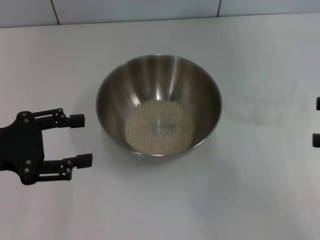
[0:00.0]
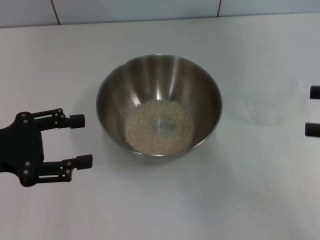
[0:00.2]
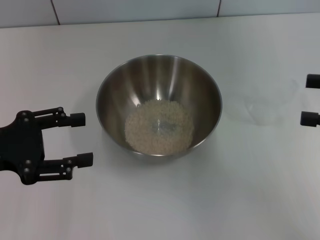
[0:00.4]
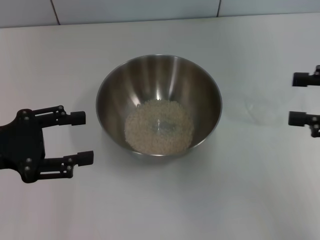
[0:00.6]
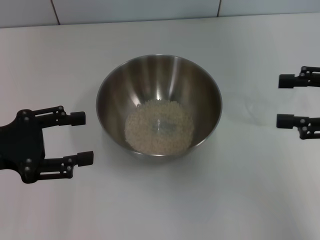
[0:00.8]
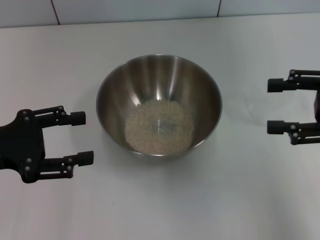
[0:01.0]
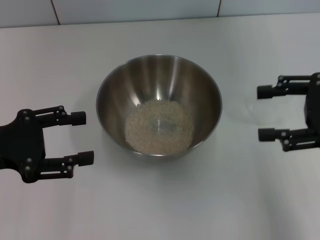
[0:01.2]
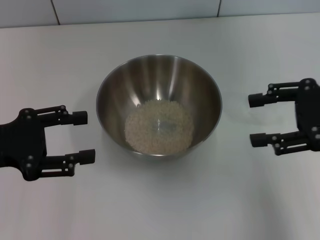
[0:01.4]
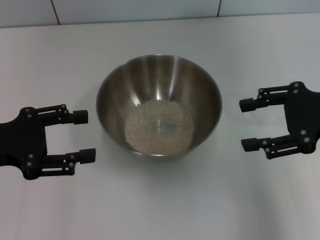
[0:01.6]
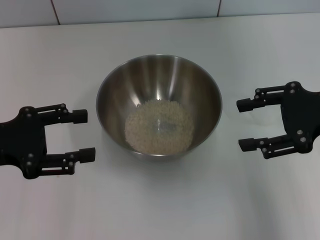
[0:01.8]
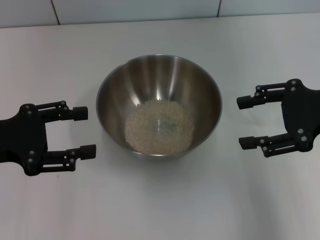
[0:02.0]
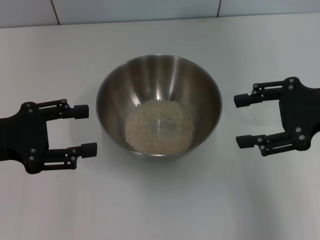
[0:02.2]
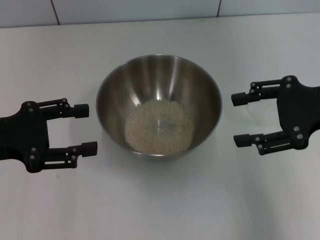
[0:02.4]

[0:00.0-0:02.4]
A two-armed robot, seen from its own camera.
Task of the whole recording: Place the bowl in the middle of the table with one hand and pour the rice from the grain cup into it with the other hand.
0:00.0 to 0:01.2: The right gripper goes some 5 cm to the left.
0:01.2 to 0:02.4: There are only small adjustments of the grippers.
